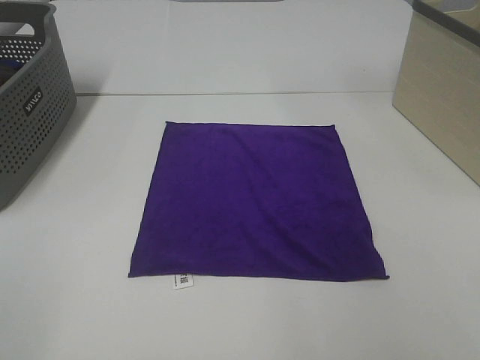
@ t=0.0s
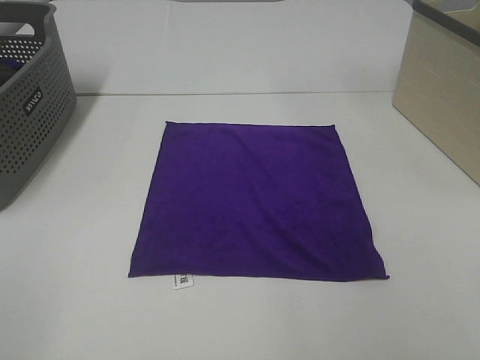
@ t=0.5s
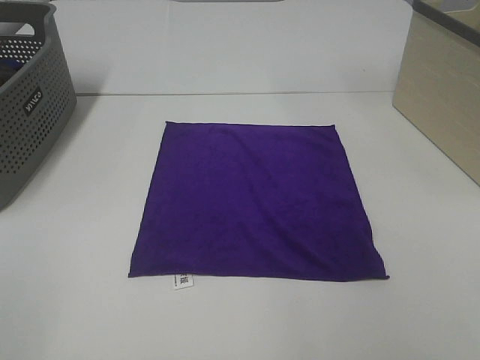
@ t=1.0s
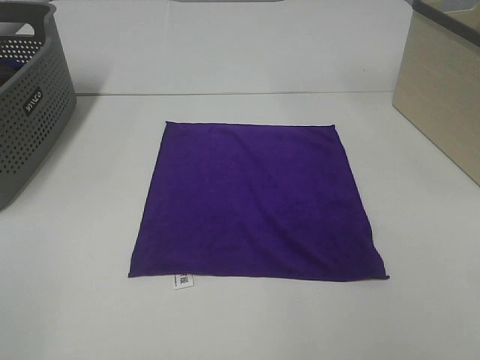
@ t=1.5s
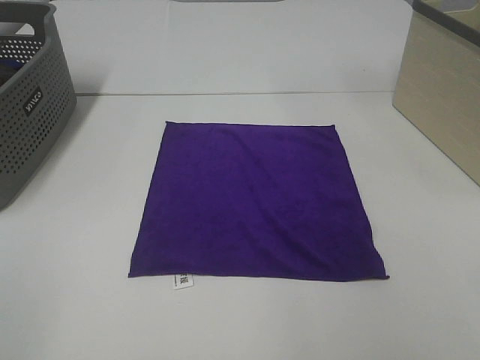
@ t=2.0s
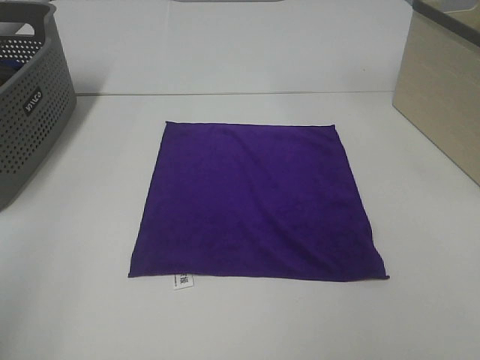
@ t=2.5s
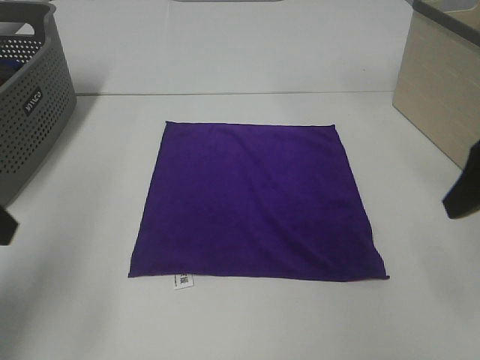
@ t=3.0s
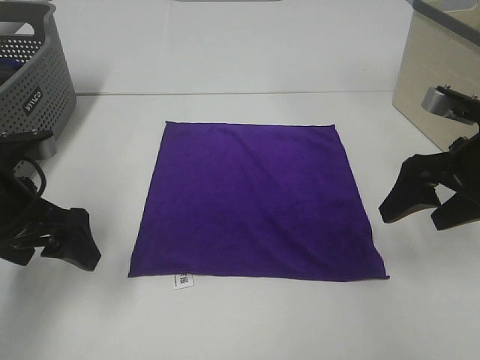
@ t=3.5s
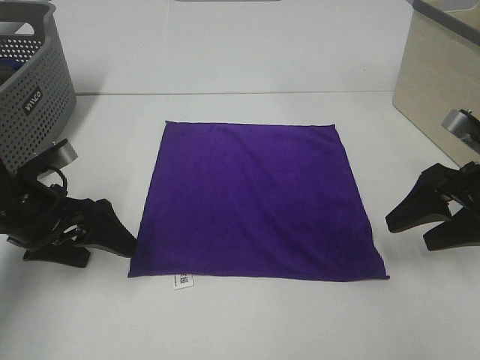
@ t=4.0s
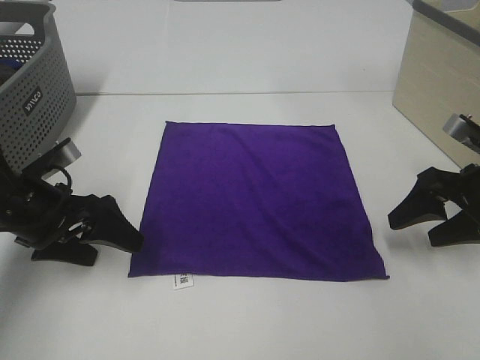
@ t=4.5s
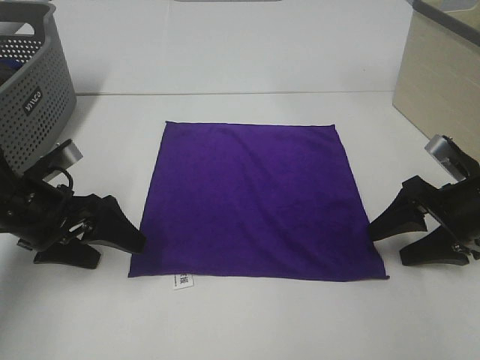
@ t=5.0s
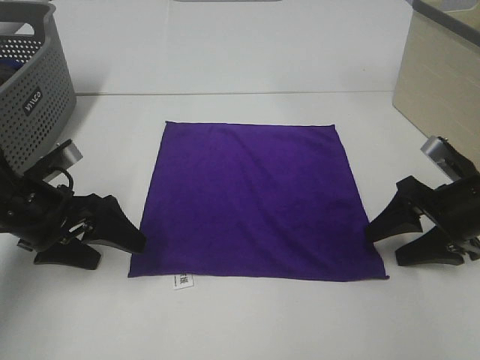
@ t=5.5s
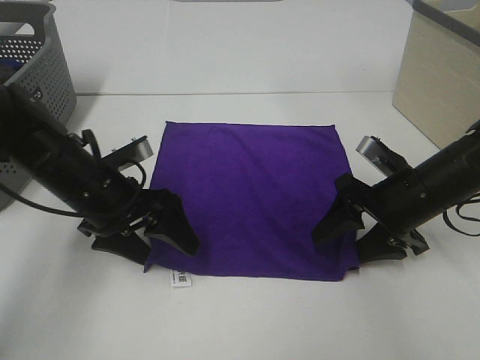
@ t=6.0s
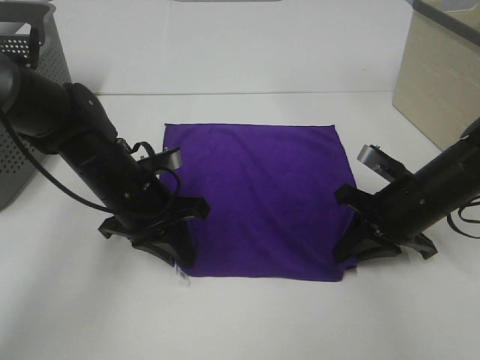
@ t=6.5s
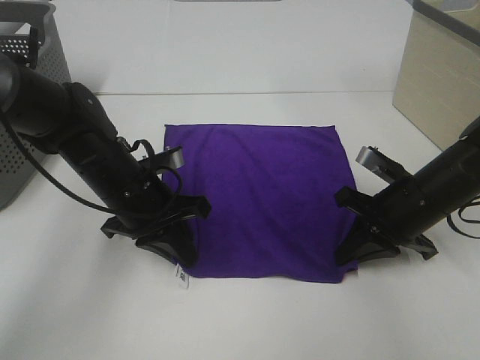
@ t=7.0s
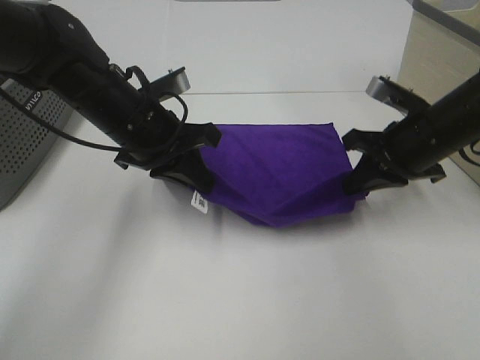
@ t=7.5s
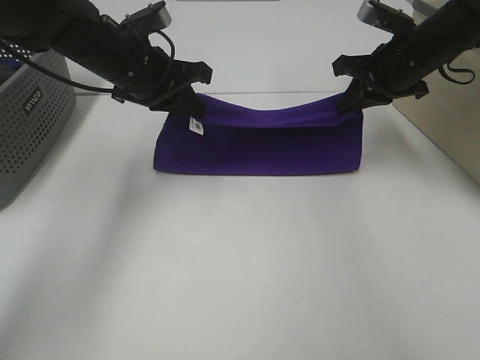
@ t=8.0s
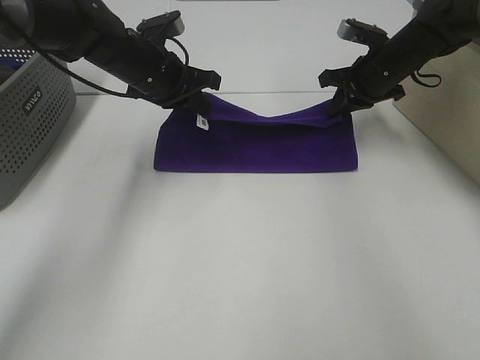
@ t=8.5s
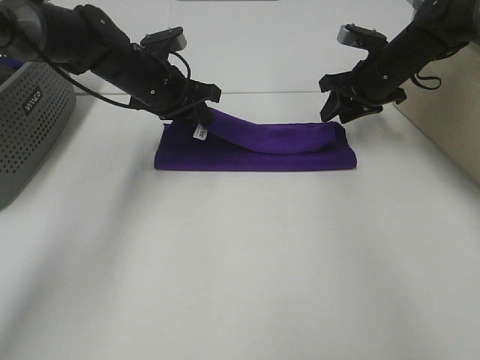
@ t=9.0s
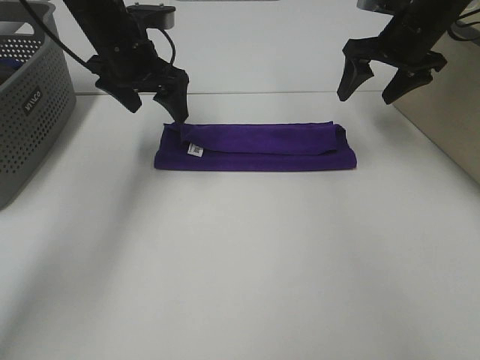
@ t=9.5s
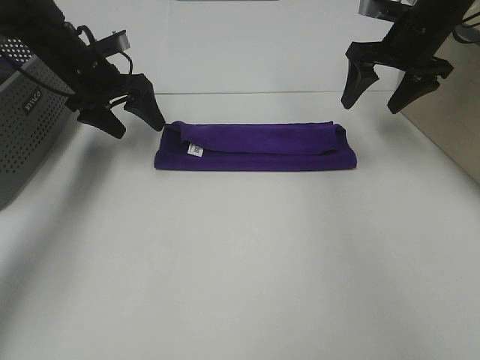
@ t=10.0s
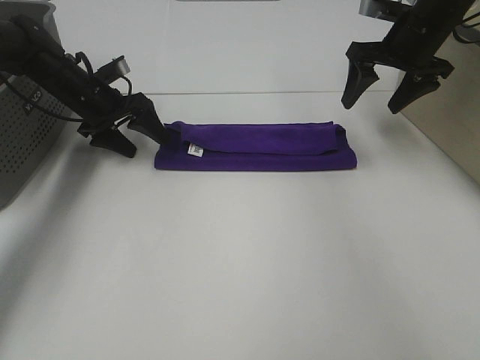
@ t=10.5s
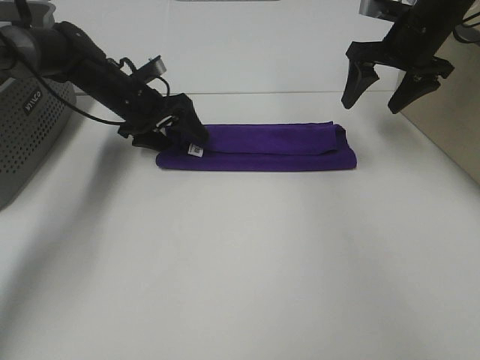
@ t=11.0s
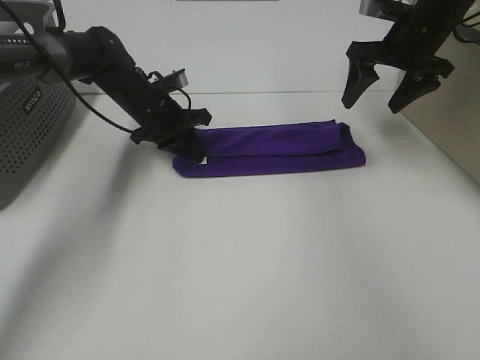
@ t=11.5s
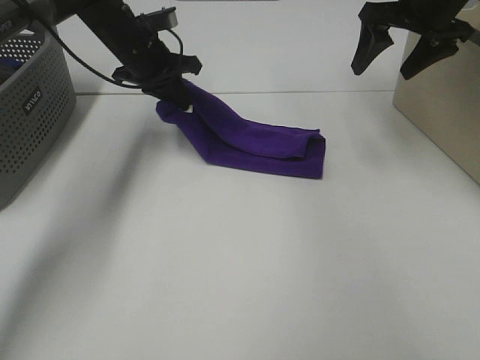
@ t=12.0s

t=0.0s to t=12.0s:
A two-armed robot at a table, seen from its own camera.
Task of the whole recording: Fold towels.
Step, t=0.0s to t=6.5s: Left hand: grab the bottom left corner of purple towel.
Step, t=0.0s to t=6.5s: Right hand: grab the bottom right corner of purple towel.
Step, t=7.0s to t=8.5s: Left hand: fold the purple towel up.
Step, t=7.0s to t=8.5s: Right hand: fold the purple towel up.
t=0.0s to t=2.0s: Neither gripper changes place.
t=2.0s to t=4.0s: Both grippers travel together forward and downward, roughly 30 cm.
t=4.0s to t=6.0s: The right gripper goes approximately 10 cm to the left and downward; the left gripper is displaced to the right by some 10 cm.
t=6.0s to t=8.0s: The two grippers go some 15 cm forward and upward. The right gripper closes. The left gripper closes up.
t=8.0s to t=10.0s: The right gripper opens its fingers; the left gripper goes roughly 10 cm to the left and forward, and opens its fingers.
t=10.0s to t=12.0s: The left gripper shifts roughly 10 cm to the right, and closes its fingers. Meanwhile the right gripper travels upward by roughly 5 cm.

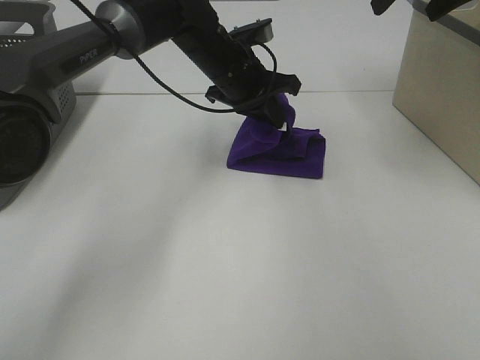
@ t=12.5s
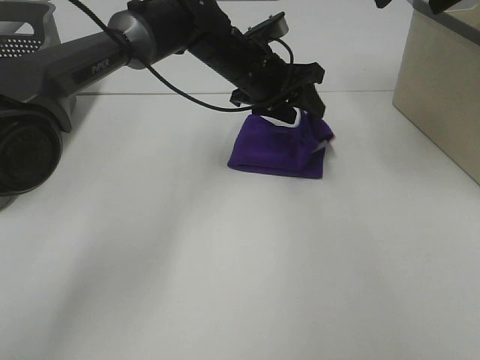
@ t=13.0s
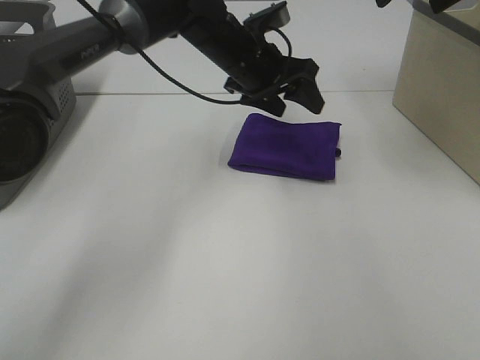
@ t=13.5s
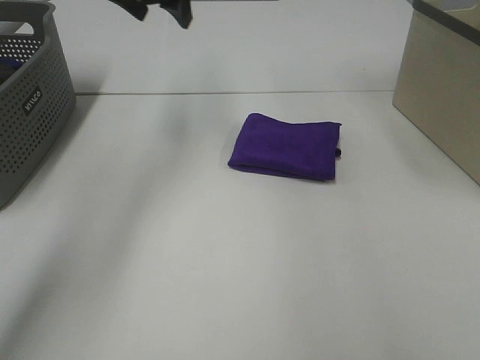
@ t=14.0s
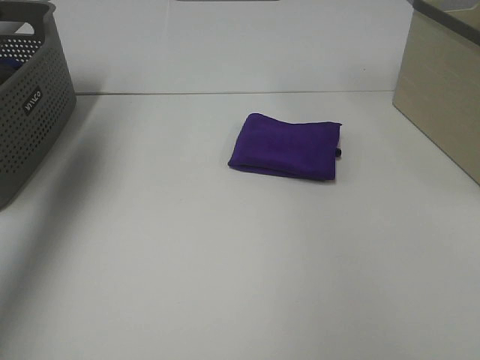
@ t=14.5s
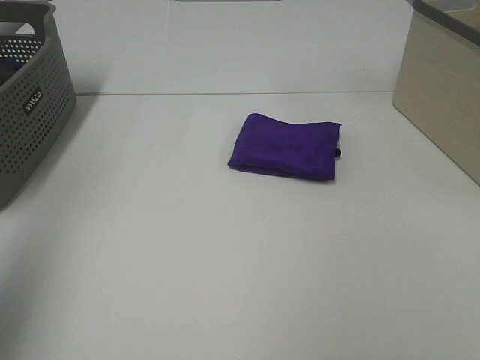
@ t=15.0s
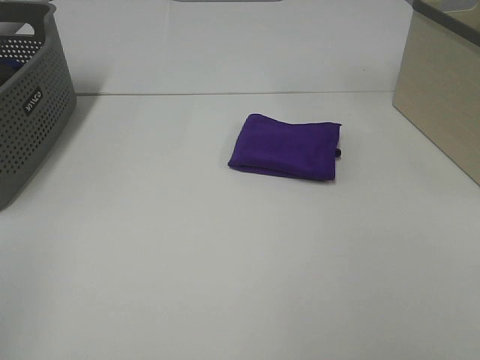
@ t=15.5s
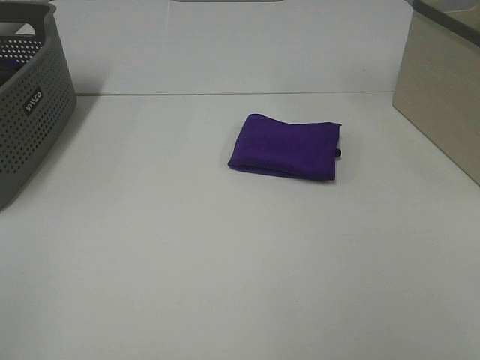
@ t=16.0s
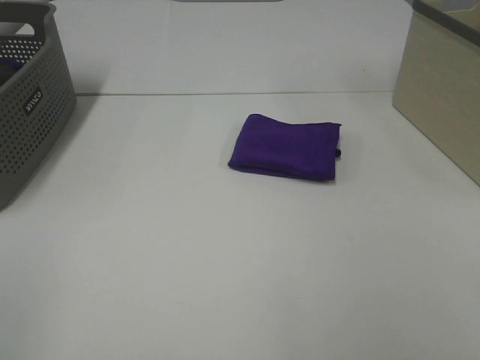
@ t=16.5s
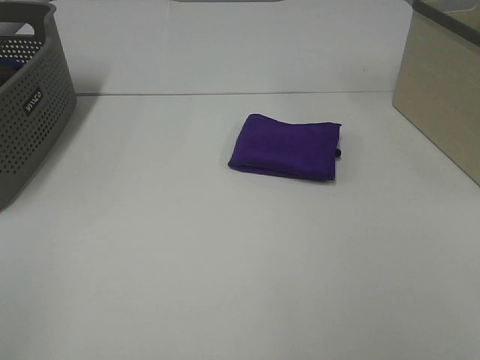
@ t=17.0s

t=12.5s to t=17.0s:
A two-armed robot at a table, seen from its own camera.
Task of the whole recording: Fold towels.
t=12.5s to t=14.5s: The left gripper is displaced to the left and upward by some 35 cm, and opens its fingers; the right gripper travels backward, to the right and upward by some 15 cm.
t=14.5s to t=17.0s: The left gripper heads backward, covering roughly 40 cm.

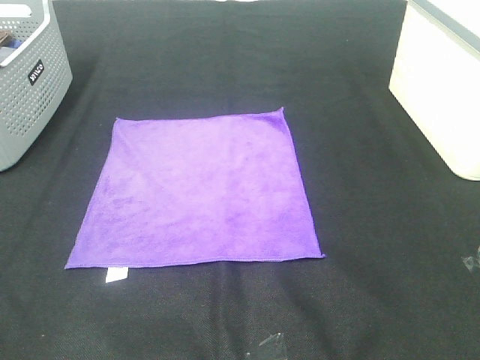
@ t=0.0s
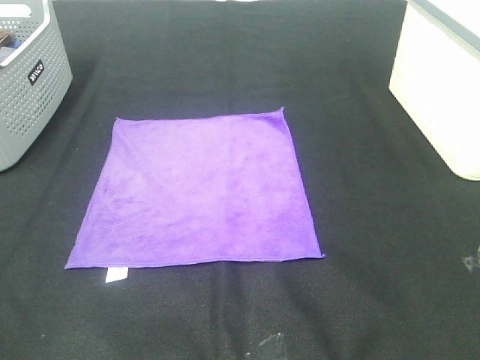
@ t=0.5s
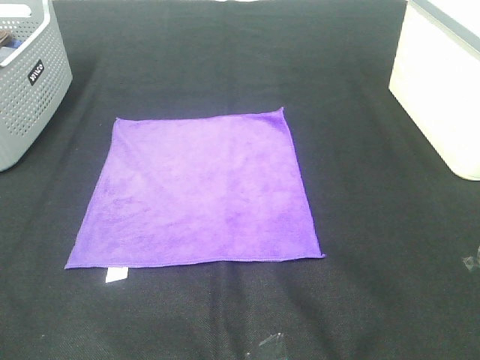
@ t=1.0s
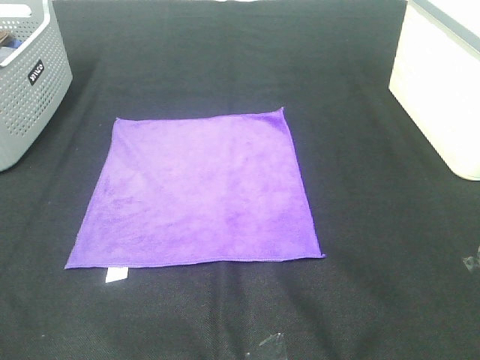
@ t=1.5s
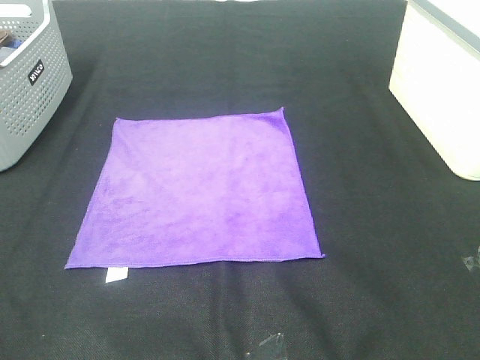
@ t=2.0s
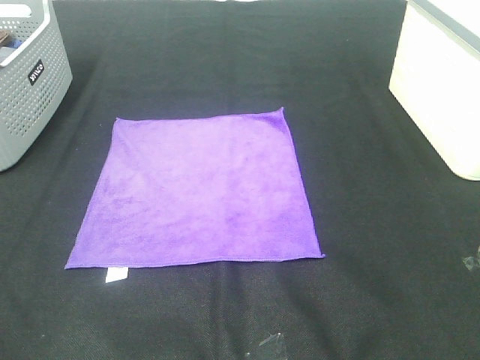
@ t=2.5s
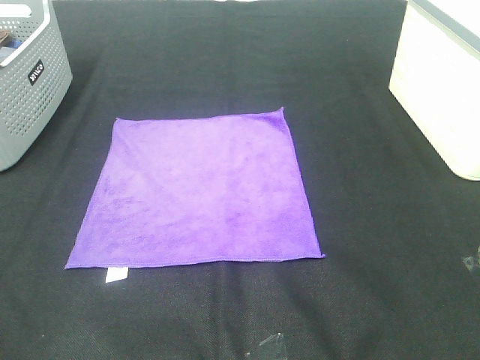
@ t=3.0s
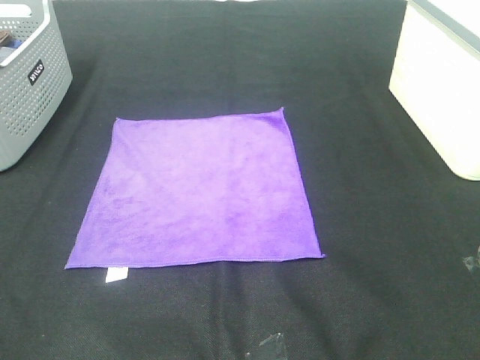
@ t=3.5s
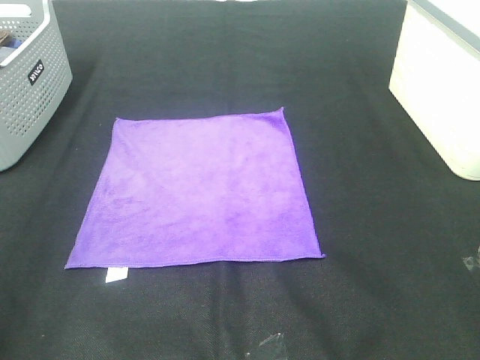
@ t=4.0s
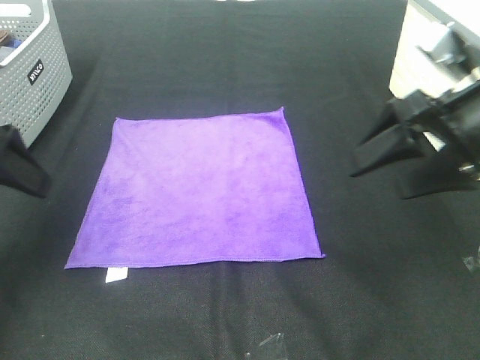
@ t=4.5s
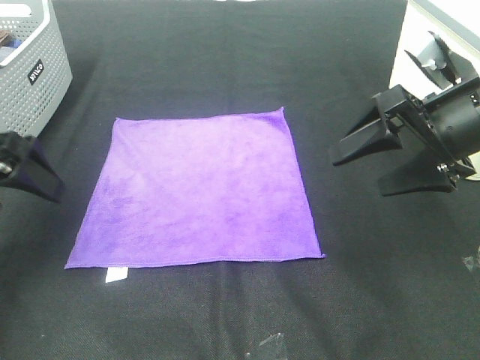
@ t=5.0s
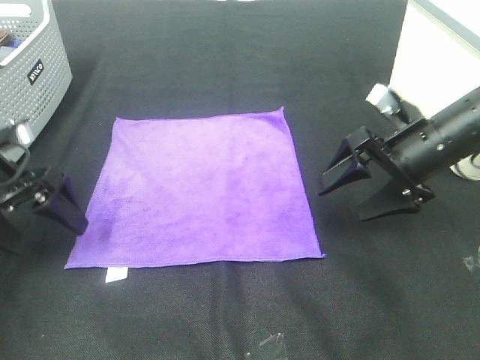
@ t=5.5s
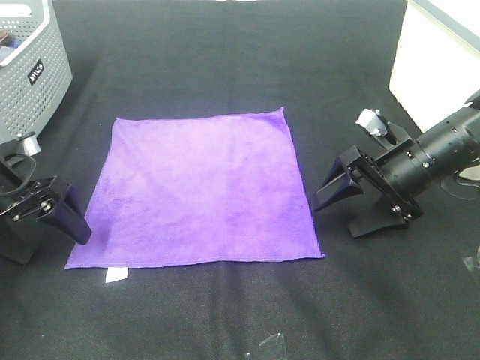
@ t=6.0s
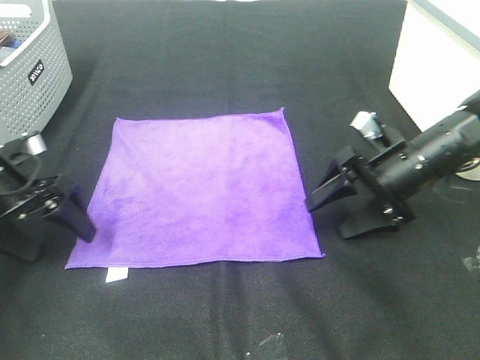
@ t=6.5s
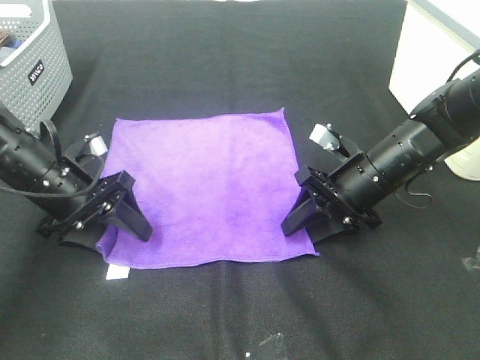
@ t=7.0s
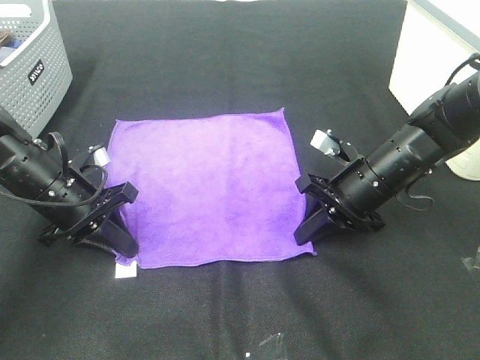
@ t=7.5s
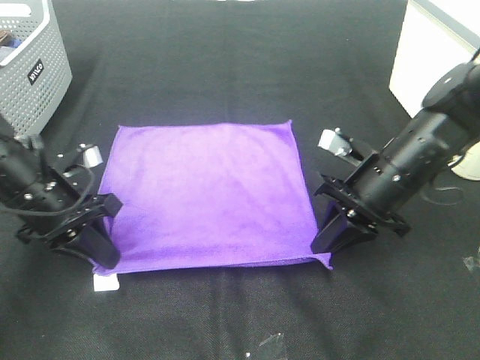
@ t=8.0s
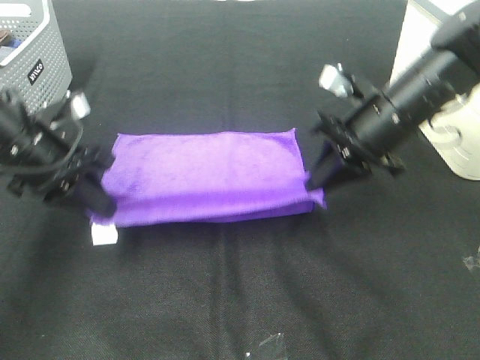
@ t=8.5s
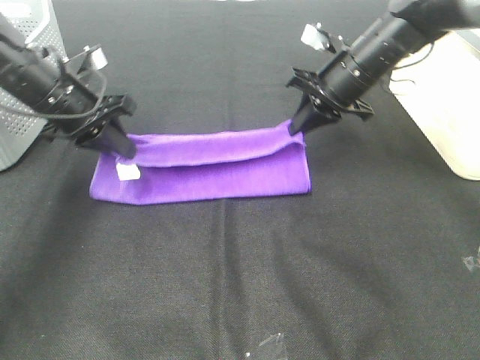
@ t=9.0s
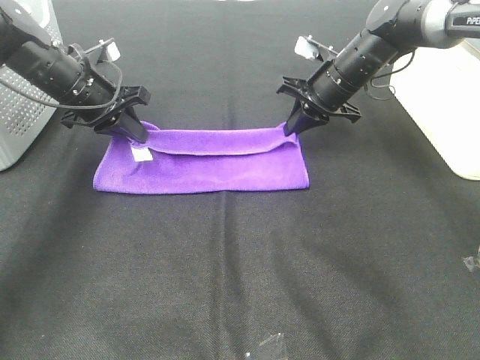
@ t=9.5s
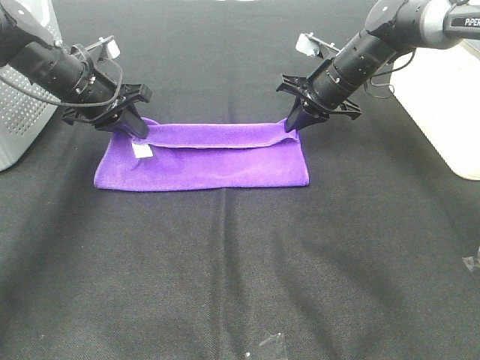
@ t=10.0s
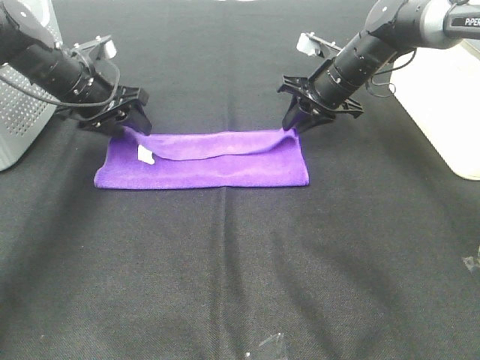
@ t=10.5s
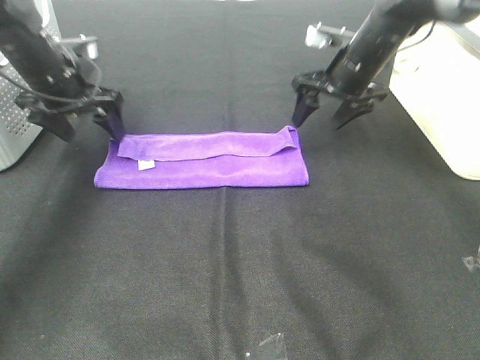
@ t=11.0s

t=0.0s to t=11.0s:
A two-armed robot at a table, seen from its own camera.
Task of the whole recording: Fold towels.
Step, t=0.0s to t=7.5s: Left hand: grab the bottom left corner of purple towel.
Step, t=0.0s to t=7.5s: Right hand: grab the bottom right corner of purple towel.
Step, t=8.0s to t=10.0s: Left hand: fold the purple towel up.
Step, t=8.0s to t=10.0s: Right hand: fold the purple towel up.
t=0.0s to t=3.5s: Both grippers stay about where they are.
t=3.5s to t=5.5s: The two grippers go approximately 35 cm forward and downward.
t=5.5s to t=7.5s: The right gripper moves downward and to the left, roughly 10 cm, and closes, while the left gripper shifts approximately 10 cm to the right and downward, and closes up.
t=7.5s to t=9.0s: The right gripper moves forward and upward, some 15 cm, while the left gripper shifts approximately 10 cm upward and forward.
t=9.0s to t=11.0s: The right gripper opens its fingers. The left gripper moves forward, some 5 cm, and opens up.
